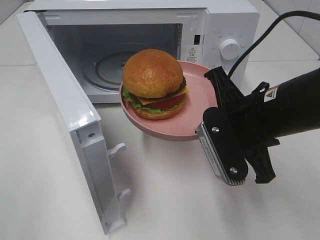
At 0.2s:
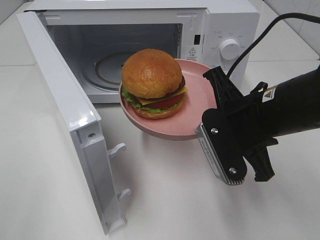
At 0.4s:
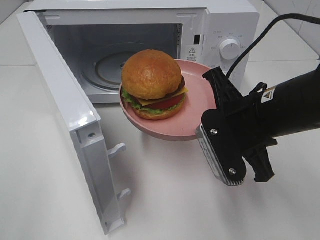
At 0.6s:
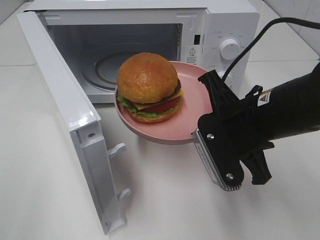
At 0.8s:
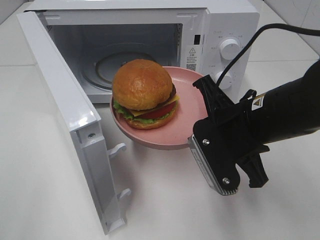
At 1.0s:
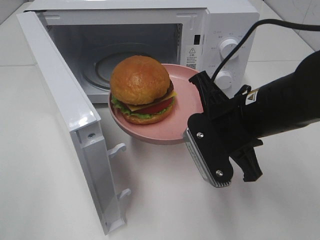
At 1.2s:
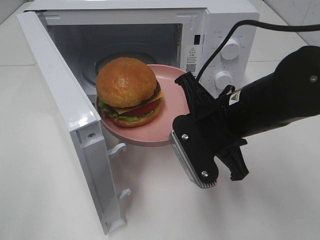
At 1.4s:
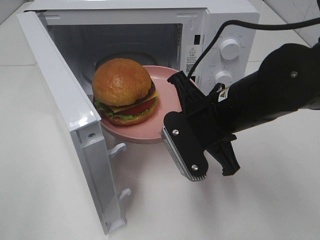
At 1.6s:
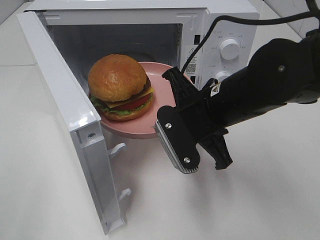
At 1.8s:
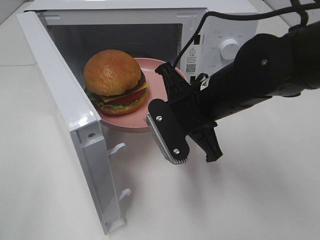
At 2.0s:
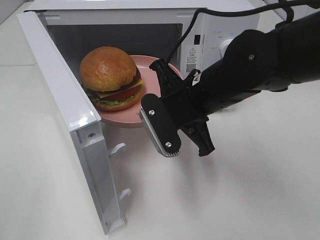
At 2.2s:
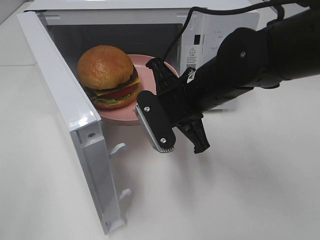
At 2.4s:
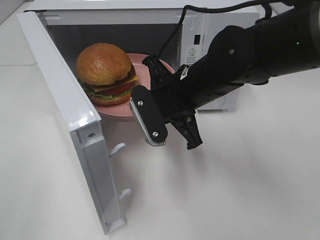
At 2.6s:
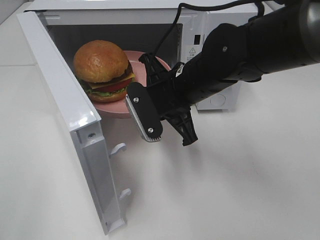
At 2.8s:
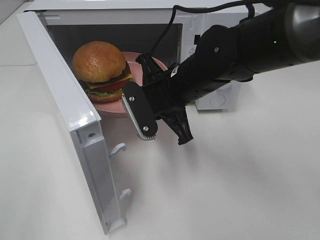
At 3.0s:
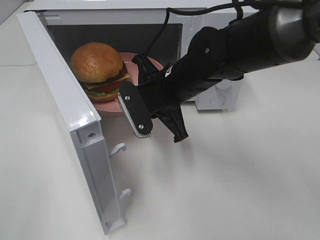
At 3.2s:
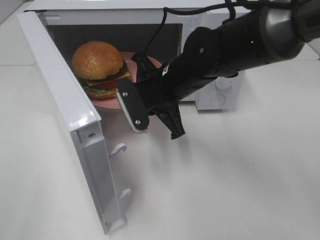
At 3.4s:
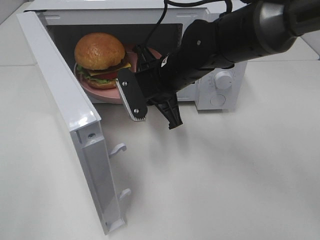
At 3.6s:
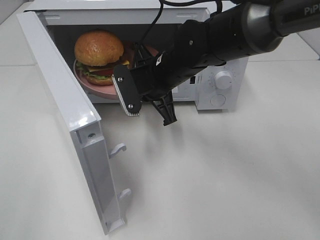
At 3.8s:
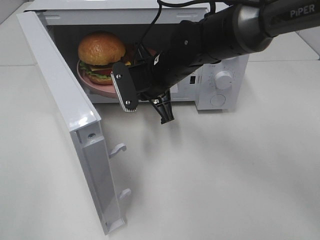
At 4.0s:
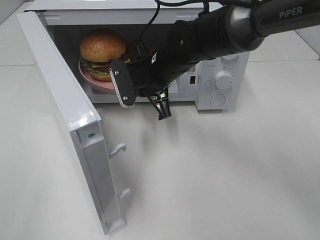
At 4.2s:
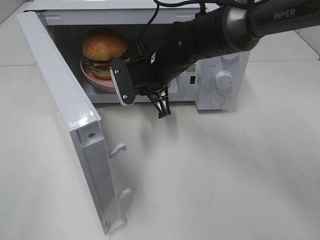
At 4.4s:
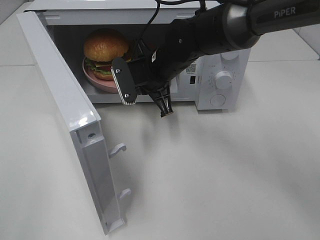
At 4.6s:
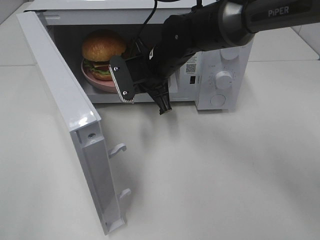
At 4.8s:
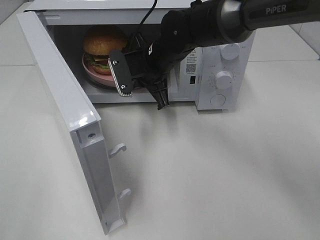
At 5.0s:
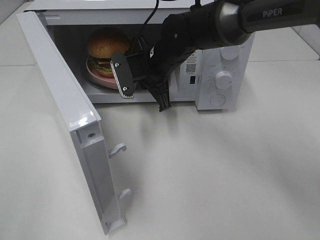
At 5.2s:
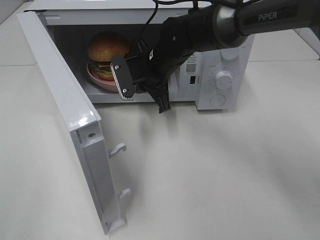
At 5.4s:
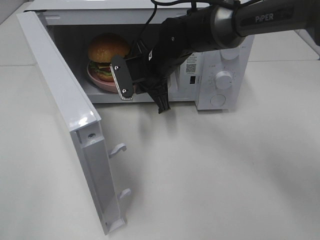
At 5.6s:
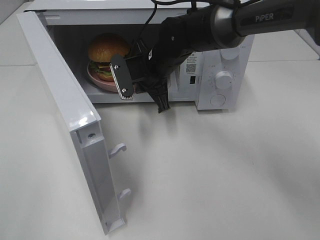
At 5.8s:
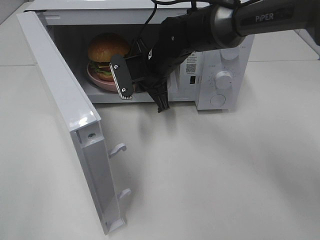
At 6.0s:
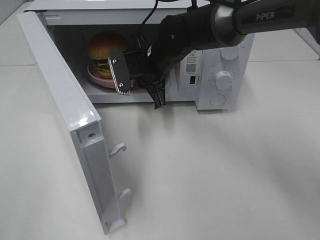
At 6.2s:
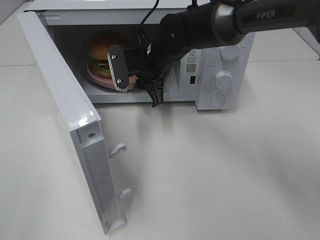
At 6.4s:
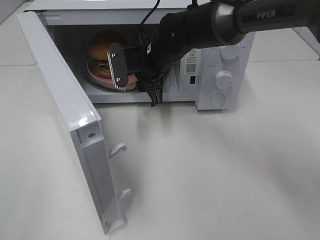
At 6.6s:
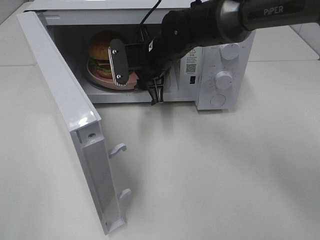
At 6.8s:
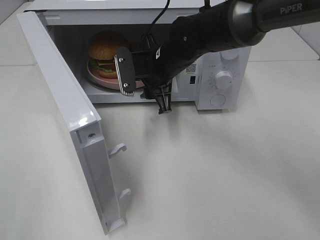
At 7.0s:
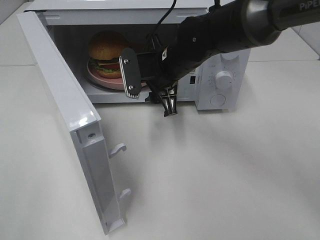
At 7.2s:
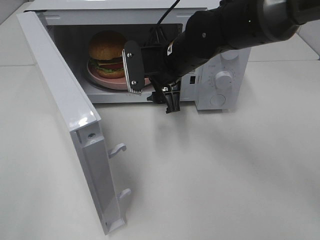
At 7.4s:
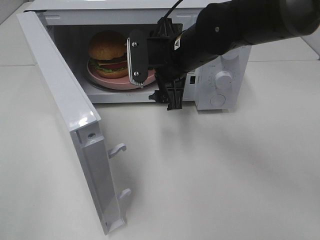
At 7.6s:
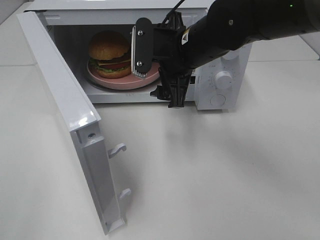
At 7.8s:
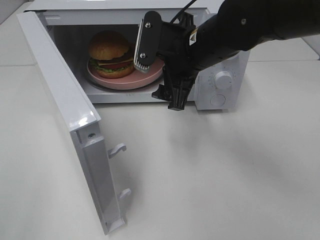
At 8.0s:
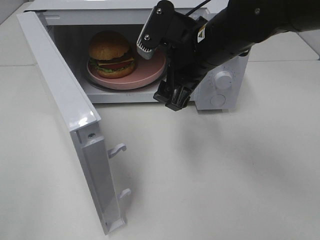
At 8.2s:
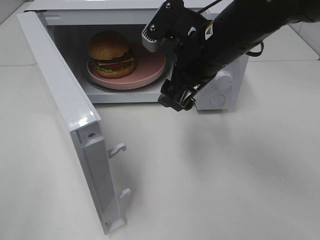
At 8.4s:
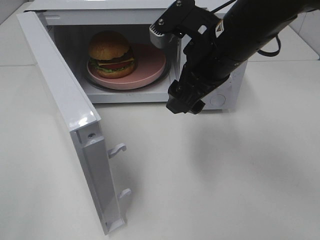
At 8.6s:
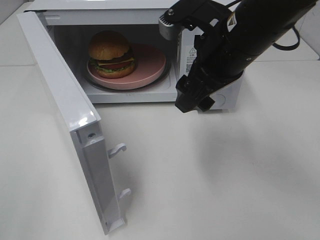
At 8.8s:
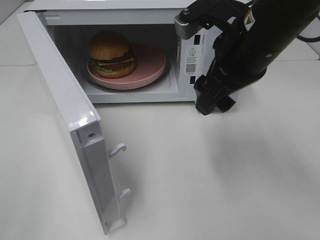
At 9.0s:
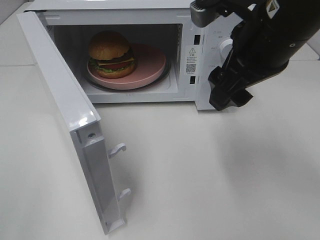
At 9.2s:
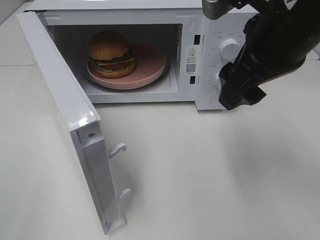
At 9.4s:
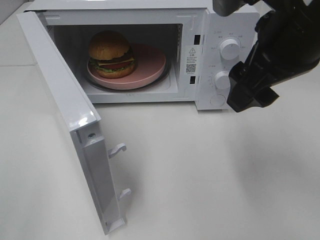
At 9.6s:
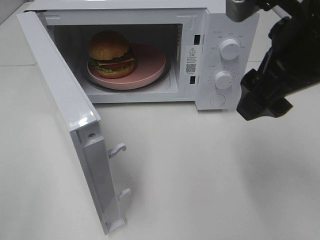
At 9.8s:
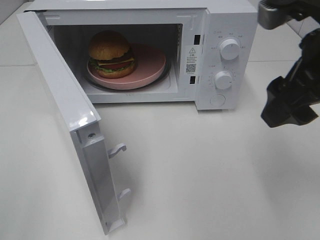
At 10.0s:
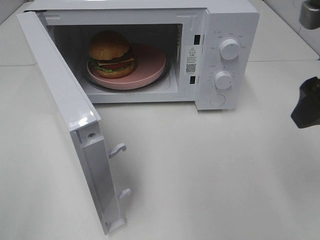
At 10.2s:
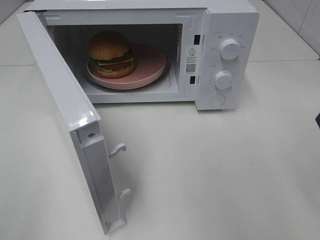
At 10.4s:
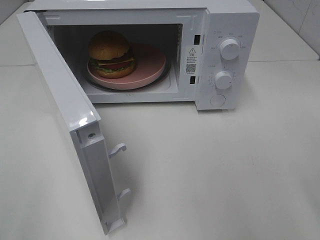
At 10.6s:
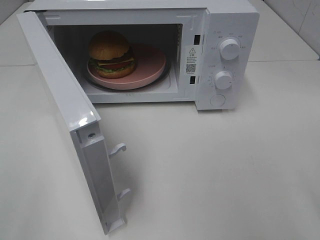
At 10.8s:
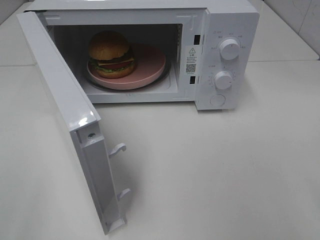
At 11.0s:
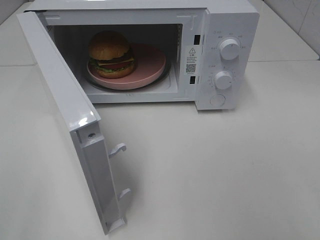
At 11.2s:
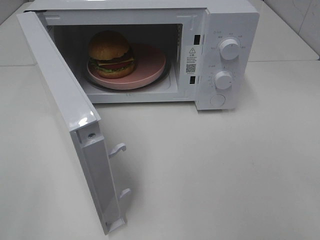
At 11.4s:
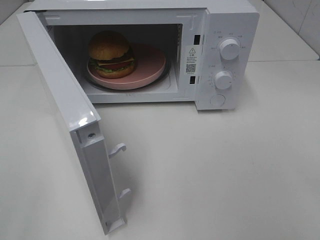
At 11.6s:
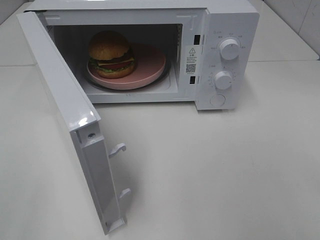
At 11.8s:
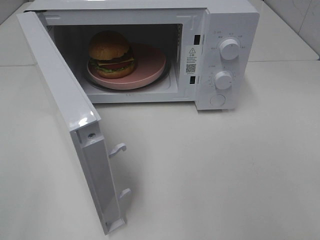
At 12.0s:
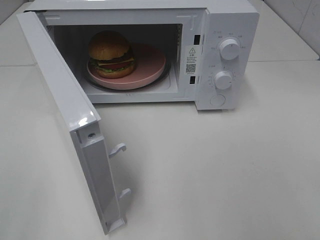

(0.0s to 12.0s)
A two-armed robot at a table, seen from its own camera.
Task of the whole recording: Heat the burger.
Step, 0.0s - 6.2s: Right hand: place the plate in the microwave.
0.0s - 1.6s: The right gripper heads to the left, covering about 5 cm.
1.6s - 3.0s: The right gripper moves forward and to the left, roughly 10 cm.
3.0s - 4.4s: The right gripper shifts approximately 5 cm forward.
4.4s - 6.0s: The grippers move only a little.
6.0s - 7.6s: The right gripper travels backward, upward and to the right by some 10 cm, and opens.
7.6s - 9.0s: The right gripper shifts roughly 15 cm backward, upward and to the right.
9.0s - 10.4s: The right gripper heads to the right and backward, covering some 15 cm.

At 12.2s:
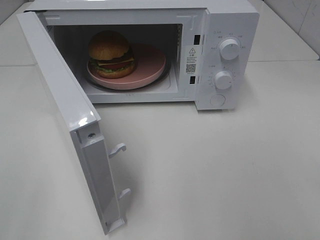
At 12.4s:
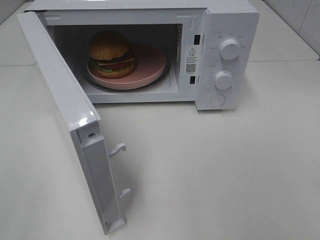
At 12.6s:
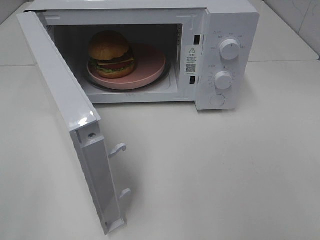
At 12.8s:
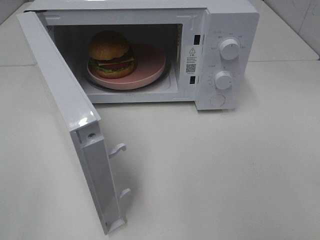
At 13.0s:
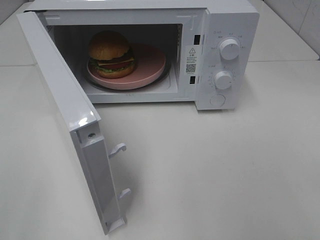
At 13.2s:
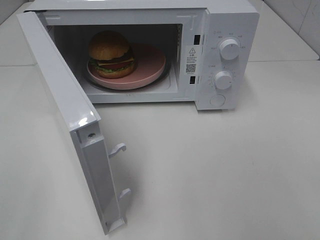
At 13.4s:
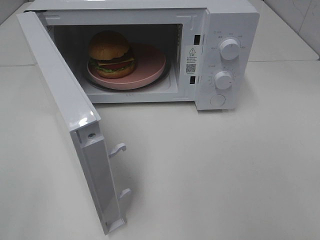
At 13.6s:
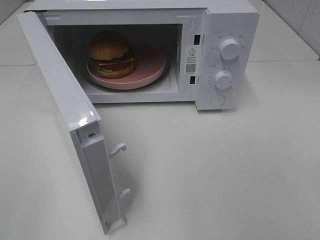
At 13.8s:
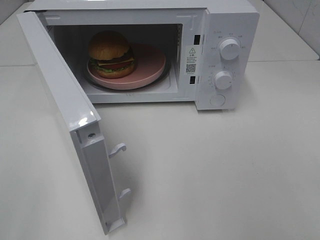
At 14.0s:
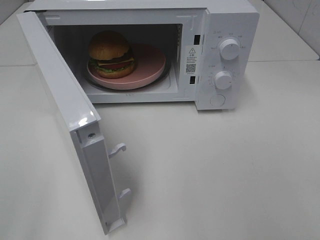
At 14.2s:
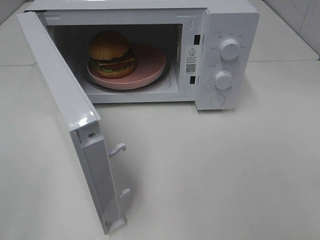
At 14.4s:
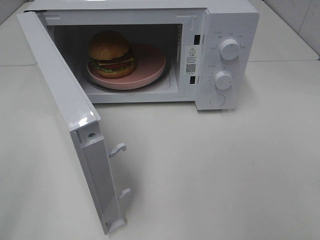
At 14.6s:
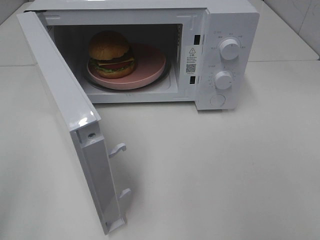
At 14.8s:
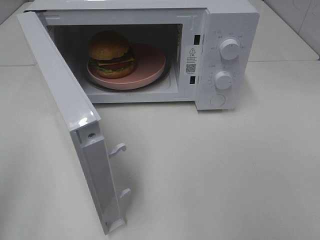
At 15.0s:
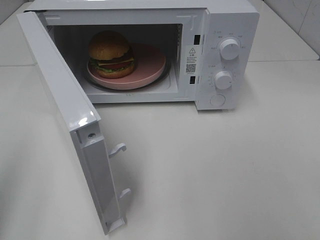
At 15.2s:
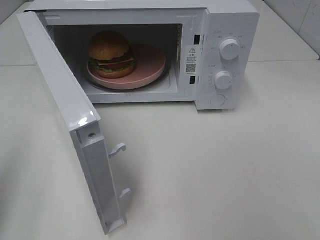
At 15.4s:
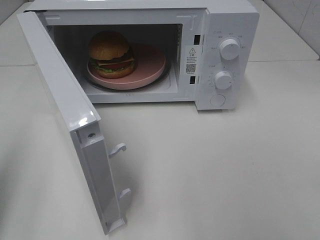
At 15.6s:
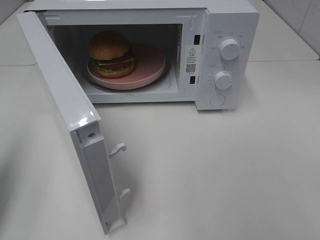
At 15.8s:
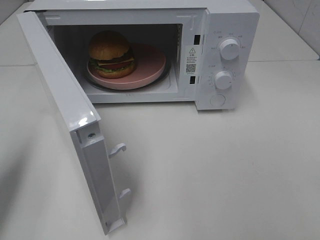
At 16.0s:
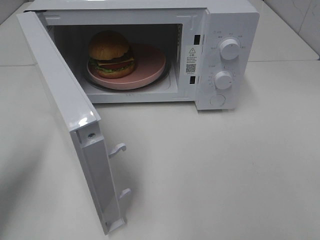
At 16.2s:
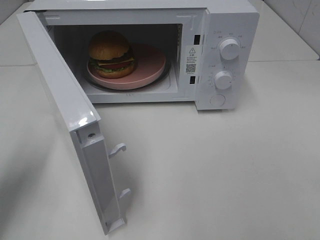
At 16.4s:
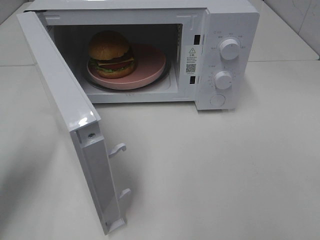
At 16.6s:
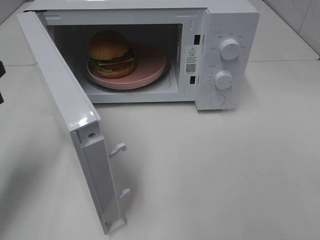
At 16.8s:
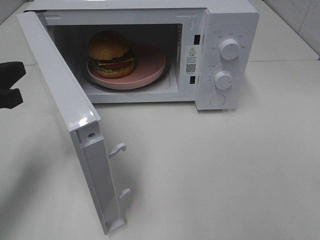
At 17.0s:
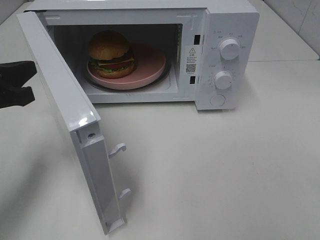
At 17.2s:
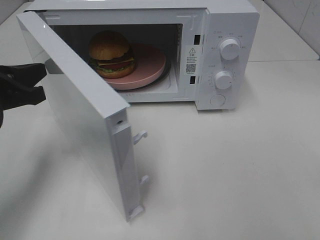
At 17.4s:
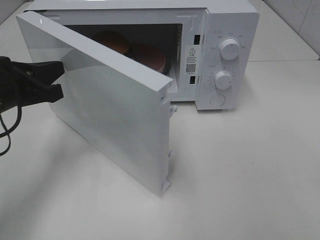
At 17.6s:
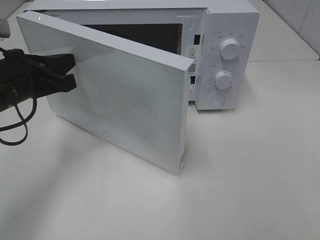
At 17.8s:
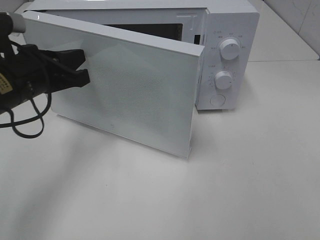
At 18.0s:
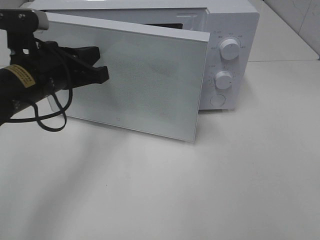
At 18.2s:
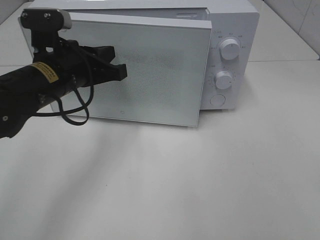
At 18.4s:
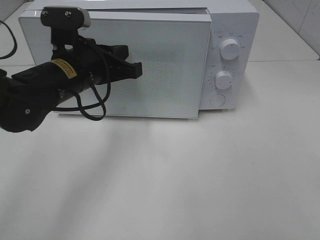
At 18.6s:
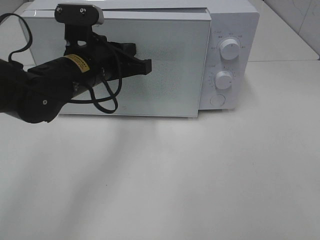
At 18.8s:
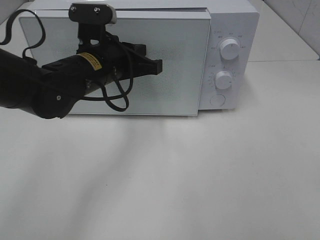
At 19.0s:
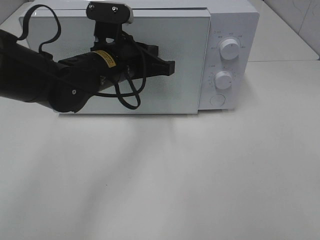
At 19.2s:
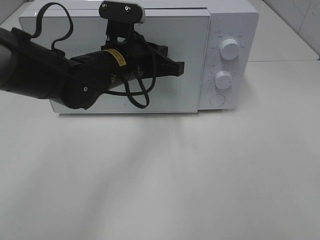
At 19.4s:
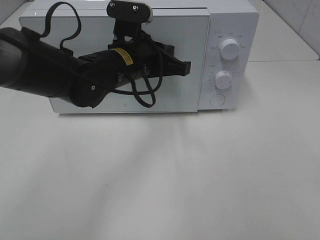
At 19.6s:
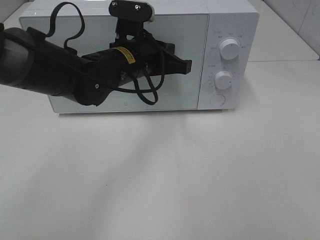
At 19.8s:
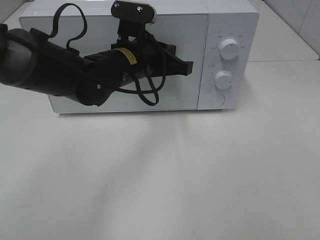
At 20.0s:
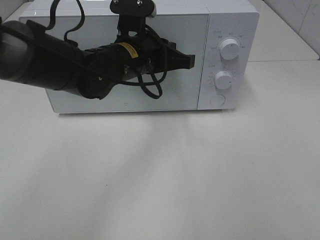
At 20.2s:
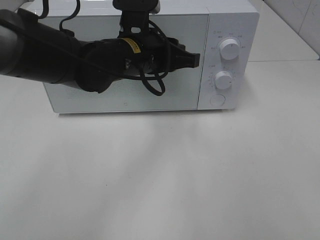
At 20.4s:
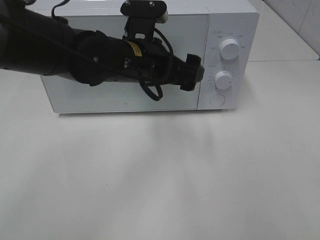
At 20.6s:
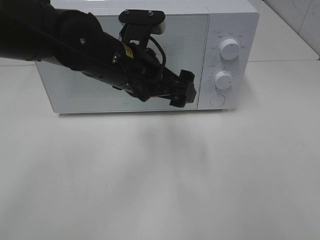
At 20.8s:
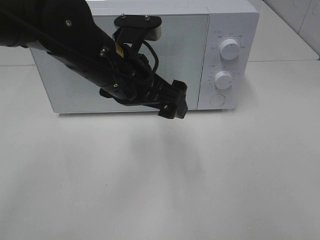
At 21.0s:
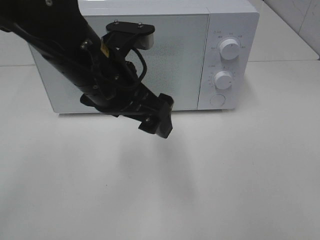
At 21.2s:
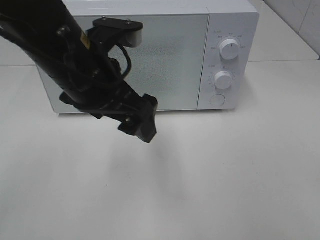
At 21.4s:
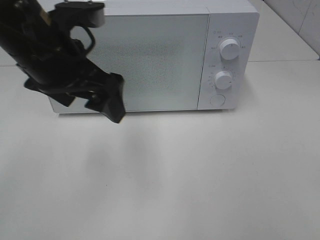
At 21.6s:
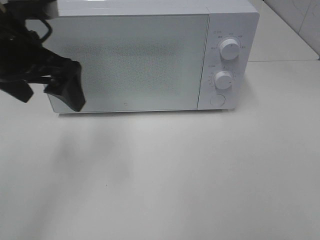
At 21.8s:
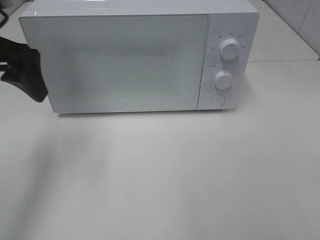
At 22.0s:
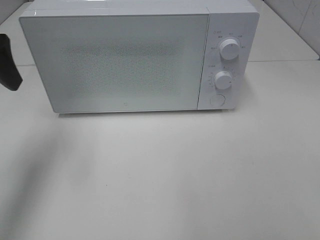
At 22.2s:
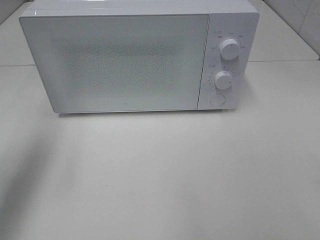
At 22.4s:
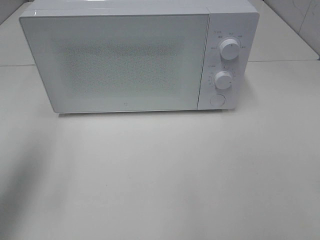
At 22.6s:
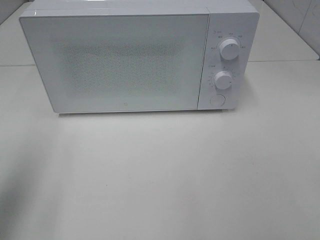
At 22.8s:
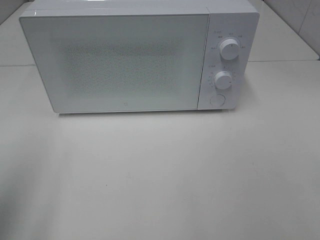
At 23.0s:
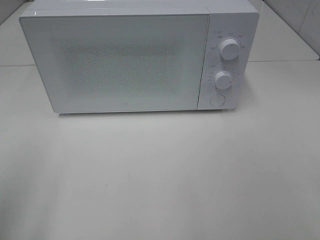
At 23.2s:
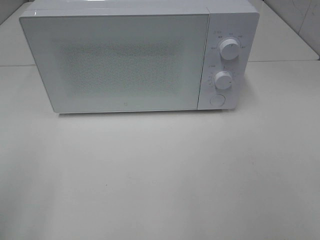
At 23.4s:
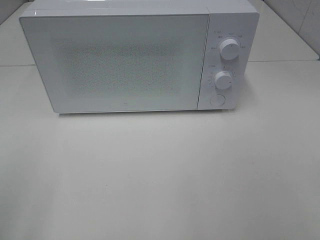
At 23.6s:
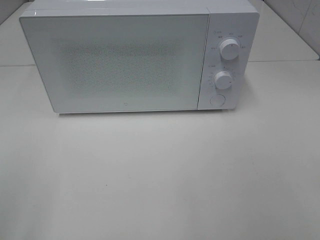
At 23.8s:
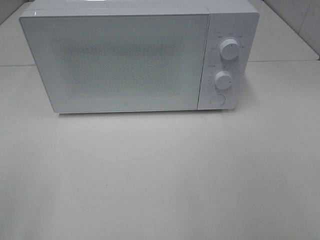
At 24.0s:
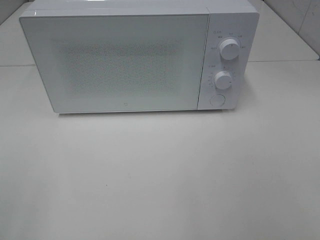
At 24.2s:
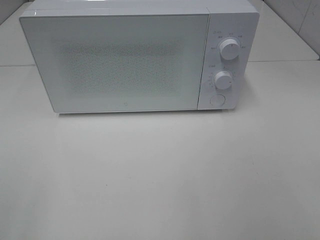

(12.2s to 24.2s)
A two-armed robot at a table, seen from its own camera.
Task of the whole recording: Heat the burger.
Step, 12.2s - 19.6s: Left hand: close the microwave door.
12.2s - 13.8s: The two grippers keep their place.
15.2s - 16.6s: The left gripper shifts roughly 15 cm forward and downward.
16.6s - 18.2s: The left gripper is displaced to the right and forward by some 15 cm.
18.2s - 19.8s: The left gripper is displaced to the right and forward by approximately 10 cm.
19.8s - 21.2s: The left gripper goes some 15 cm backward and upward, and opens its fingers.
21.2s - 22.6s: The left gripper is displaced to the left by approximately 20 cm.
22.6s - 24.2s: The left gripper is displaced backward by some 15 cm.
